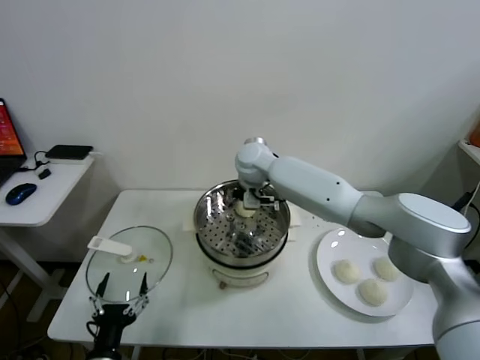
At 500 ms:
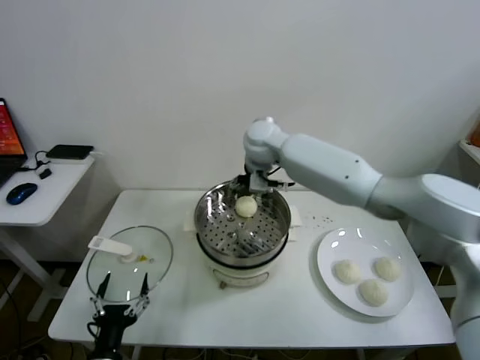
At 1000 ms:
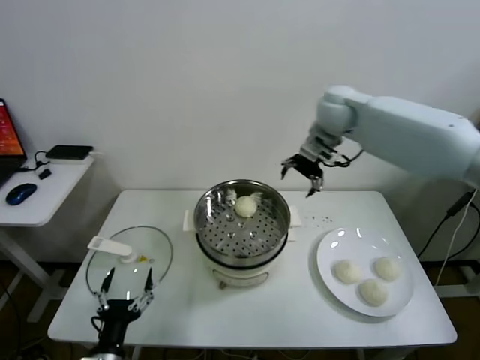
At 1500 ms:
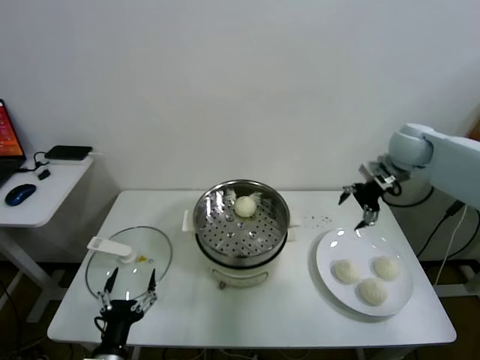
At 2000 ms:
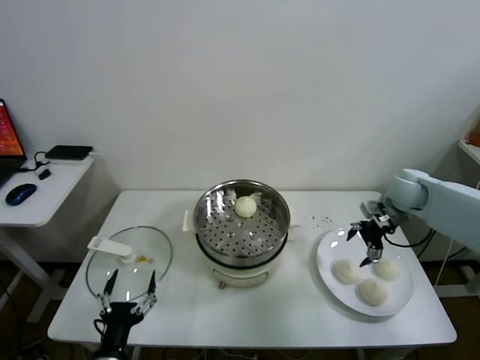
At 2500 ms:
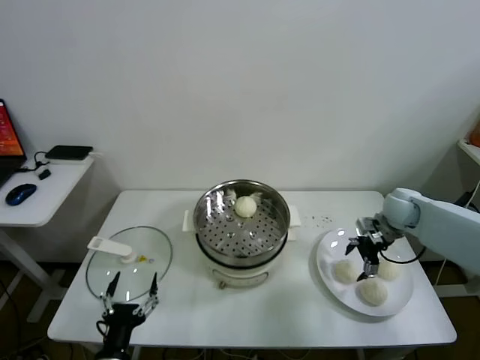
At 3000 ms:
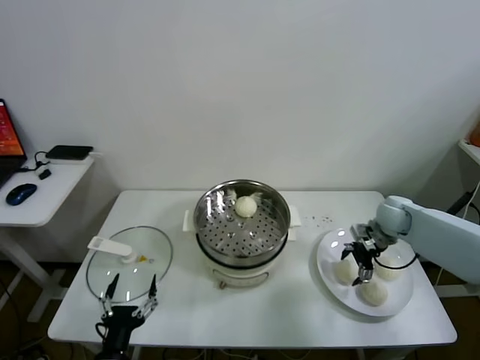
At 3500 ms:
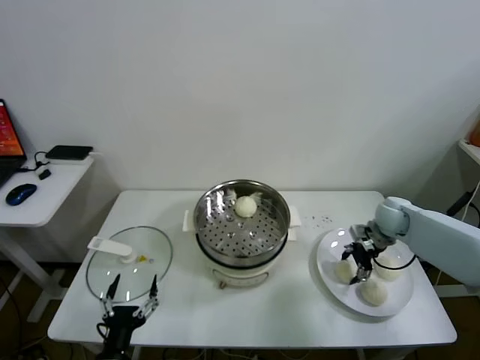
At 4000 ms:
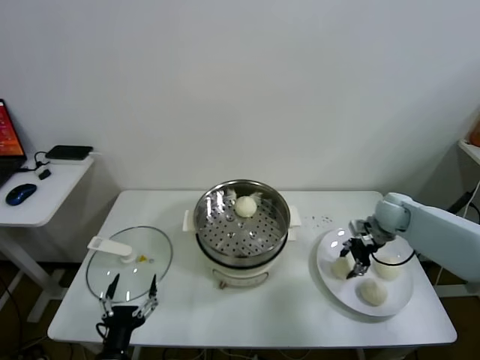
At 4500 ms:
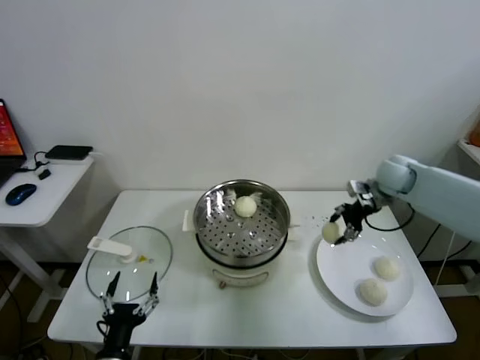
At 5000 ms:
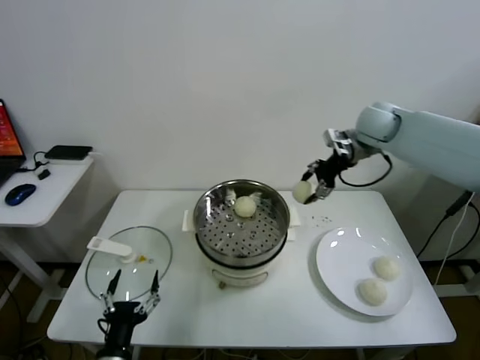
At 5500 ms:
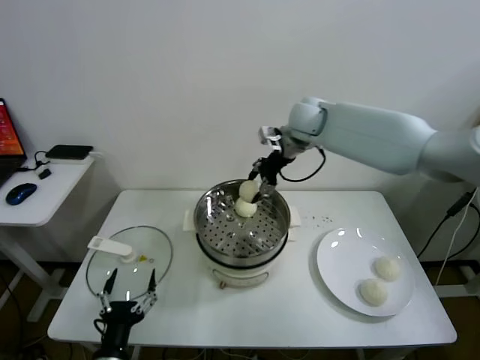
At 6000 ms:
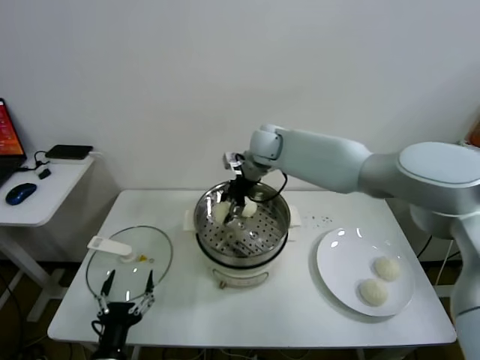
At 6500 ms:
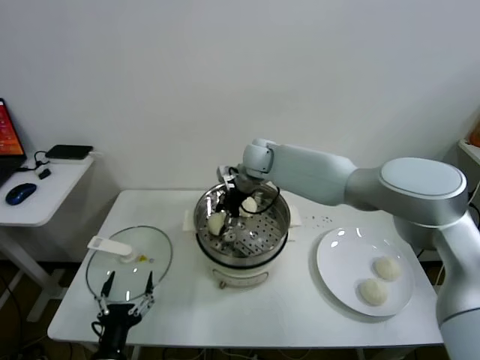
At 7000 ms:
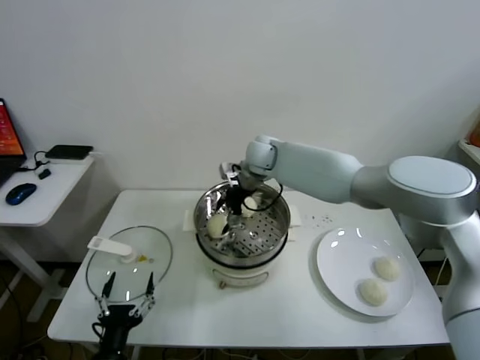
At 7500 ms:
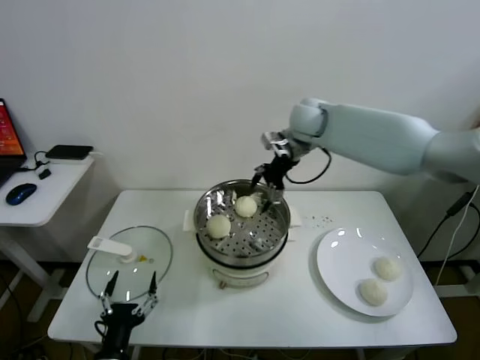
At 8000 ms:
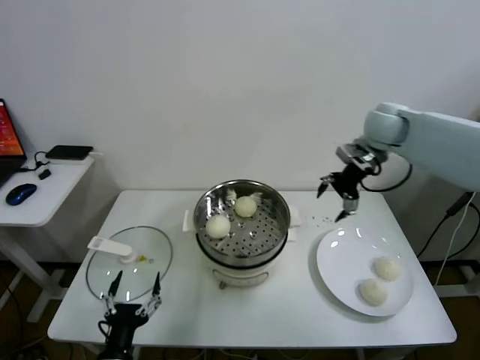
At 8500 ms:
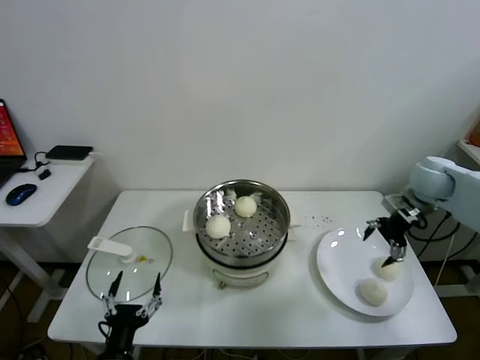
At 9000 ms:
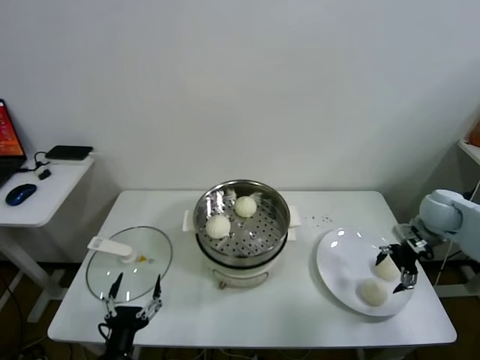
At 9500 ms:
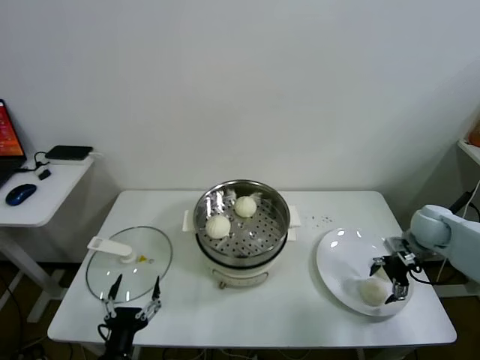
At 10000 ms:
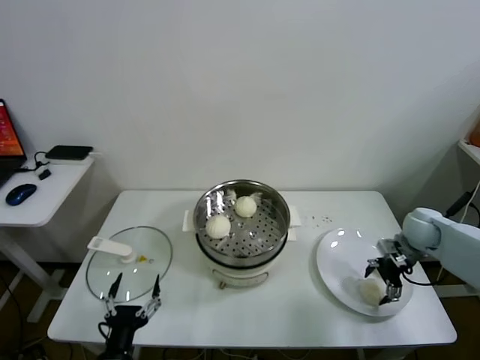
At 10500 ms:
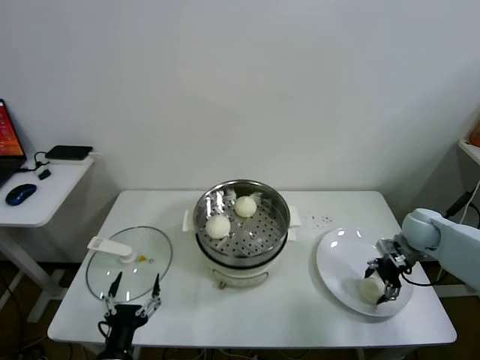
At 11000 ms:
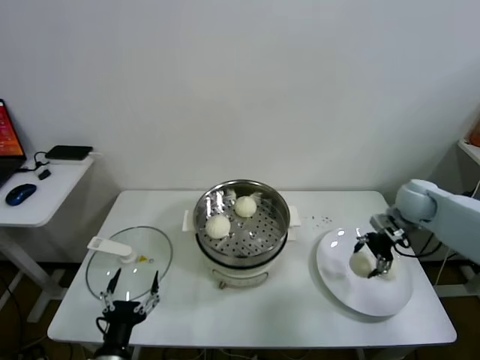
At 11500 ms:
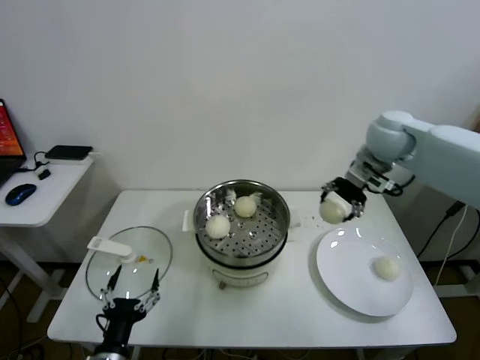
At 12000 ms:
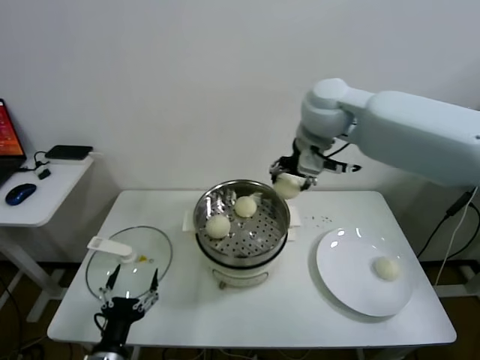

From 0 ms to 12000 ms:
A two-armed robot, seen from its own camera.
Task of the whole recording: take steamed baozi put them in steamer.
Step, from 500 ms to 3500 ms: Grasp the baozi in the plate with right gripper.
Step, from 4000 ms to 6500 ms: Place the baozi on the steamer with right gripper.
Step, from 7000 ms to 10500 ms: Grasp the baozi in the plate with right gripper.
From 0 ms to 2000 ms: The right gripper goes about 35 cm to the right.
From 2000 ms to 4000 ms: The right gripper moves downward, some 5 cm, and closes.
From 4000 ms to 6000 ms: The right gripper is displaced to the left and upward by roughly 35 cm.
From 6000 ms to 8000 ms: The right gripper travels to the right by about 25 cm, and opens.
From 8000 ms to 10000 ms: The right gripper shifts roughly 25 cm downward, to the right and backward.
From 10000 ms to 12000 ms: The right gripper shifts some 40 cm upward and to the left.

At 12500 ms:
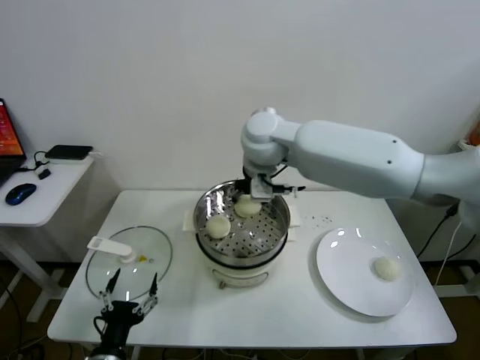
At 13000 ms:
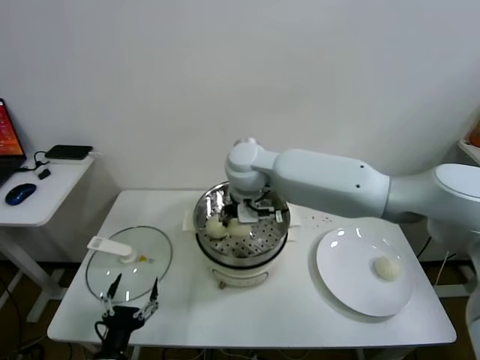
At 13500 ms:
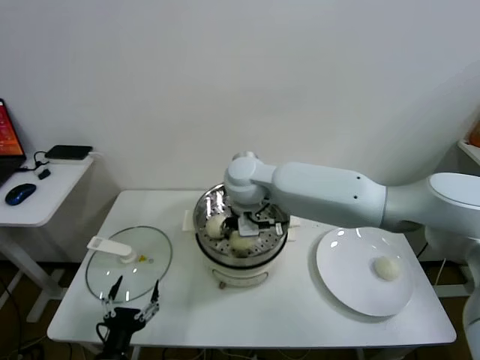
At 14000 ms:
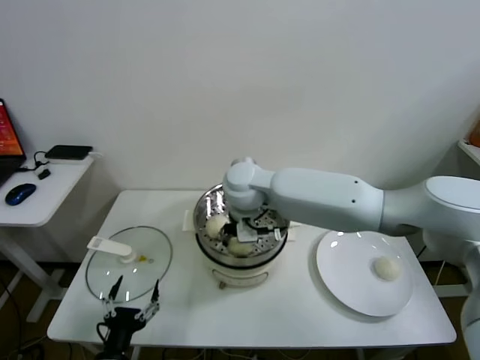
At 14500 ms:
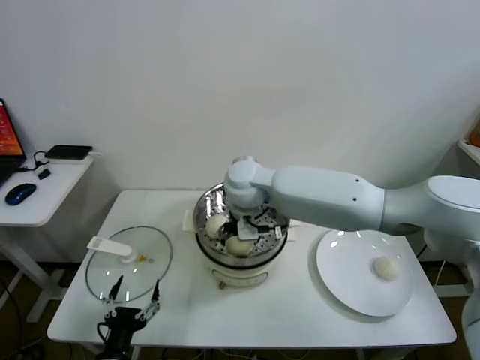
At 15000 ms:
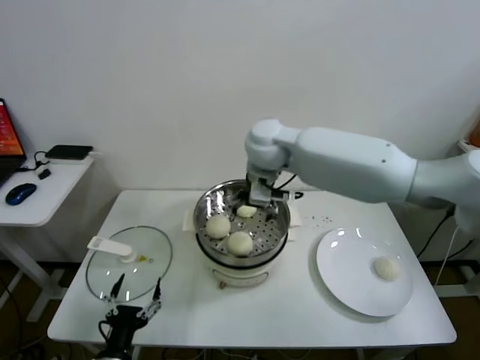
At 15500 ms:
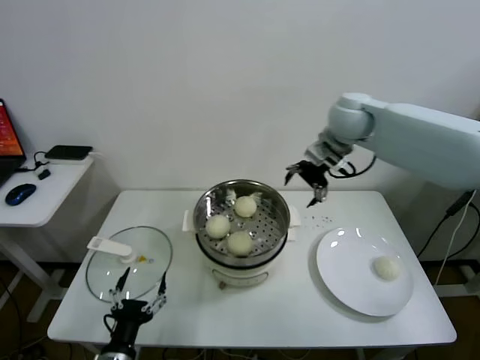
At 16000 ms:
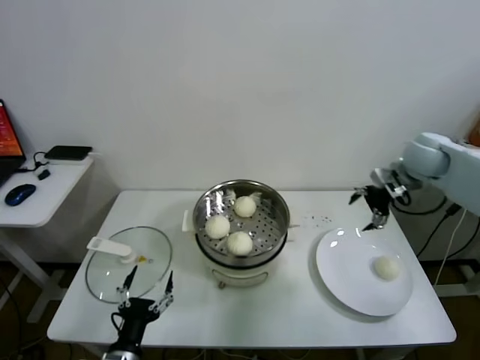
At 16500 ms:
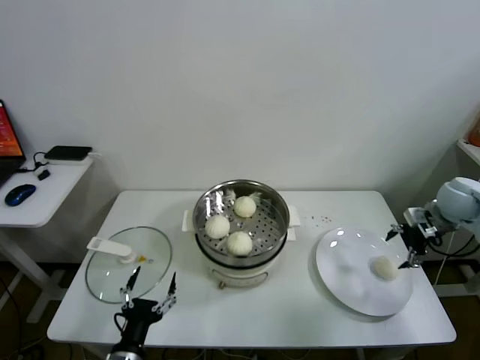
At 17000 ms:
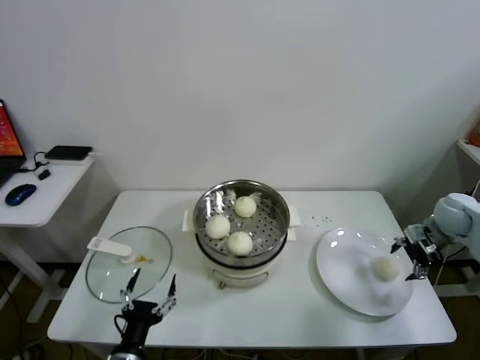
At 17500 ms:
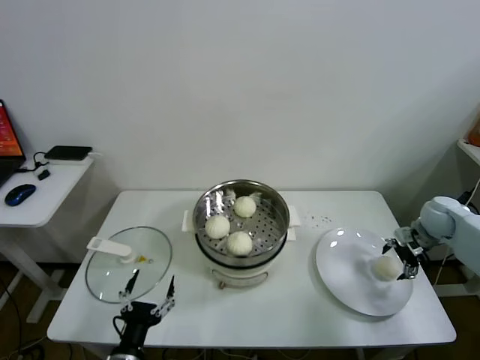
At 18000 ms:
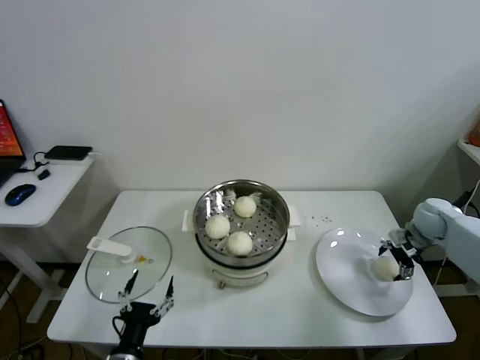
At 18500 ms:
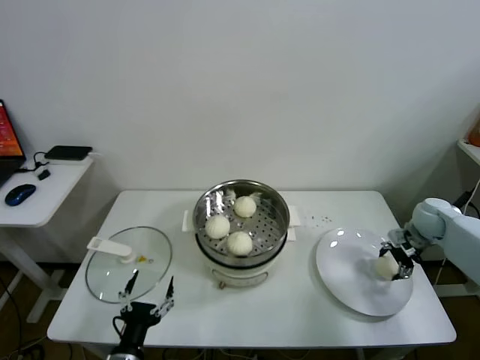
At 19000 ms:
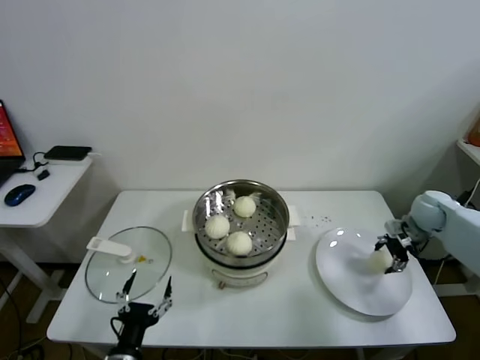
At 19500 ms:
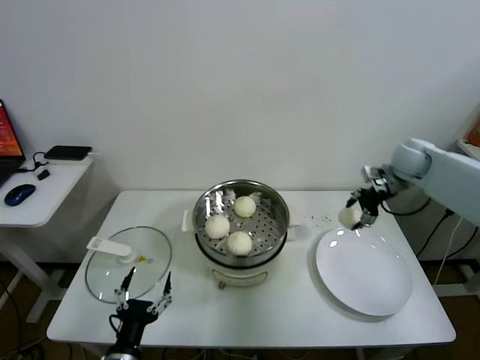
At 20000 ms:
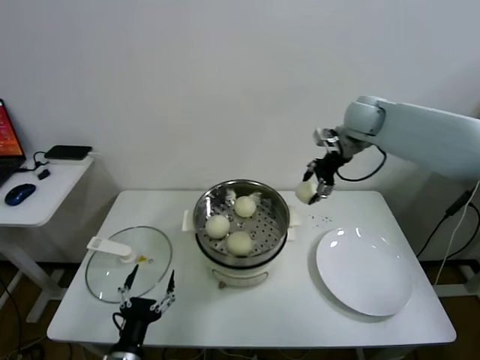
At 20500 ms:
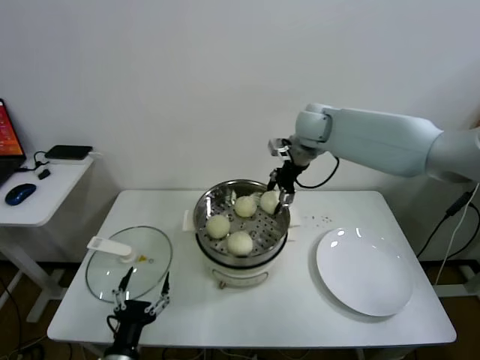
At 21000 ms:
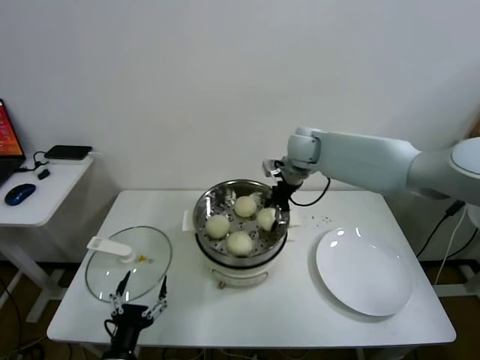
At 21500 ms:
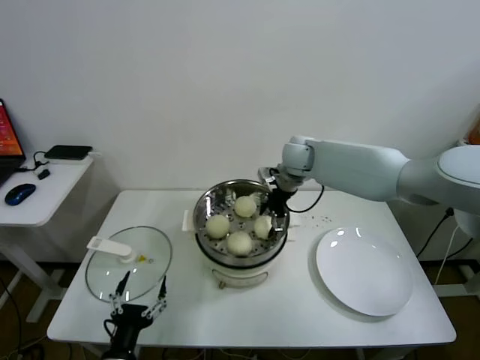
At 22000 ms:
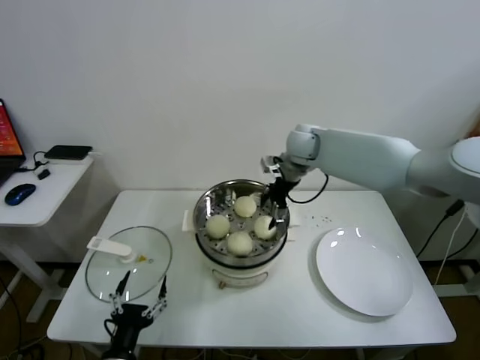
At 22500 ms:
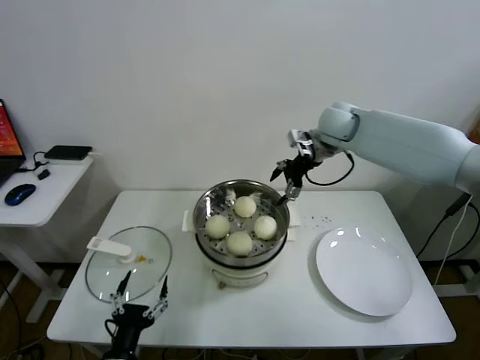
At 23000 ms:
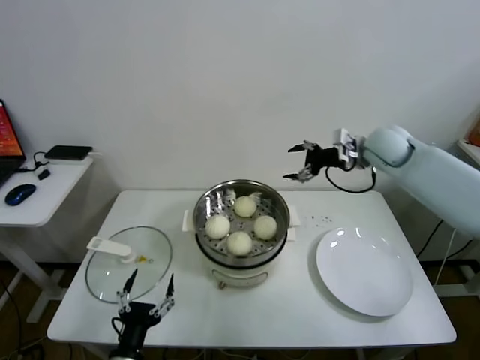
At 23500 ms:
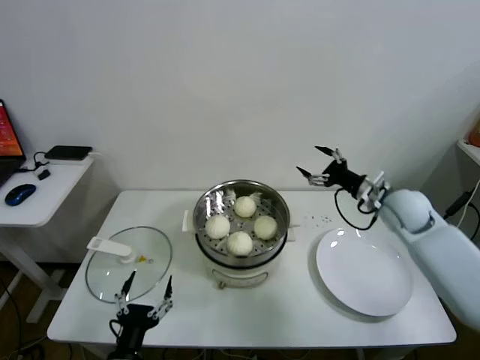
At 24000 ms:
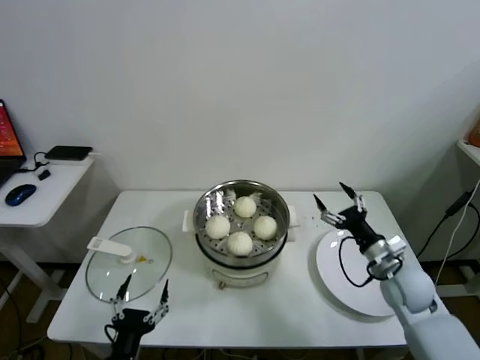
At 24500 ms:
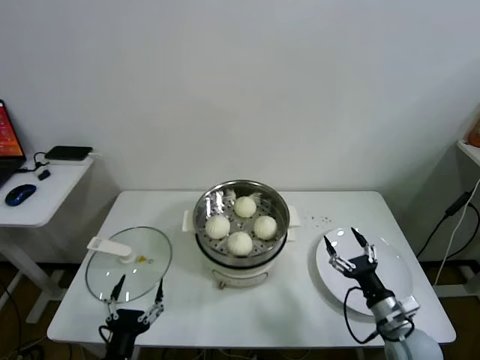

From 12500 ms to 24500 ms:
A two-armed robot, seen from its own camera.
Task of the whole recording: take steamed baozi put them in steamer.
Step, from 14500 ms to 18500 ms: Grasp the baozi in the plate with right gripper.
Step, from 19000 ms to 21500 ms: Place the baozi on the steamer with right gripper.
From 12500 ms to 14500 ms: The right gripper is displaced downward by some 10 cm, and opens up.
From 14500 ms to 16500 ms: The right gripper is displaced to the right by some 50 cm.
From 16500 ms to 18500 ms: The right gripper is displaced downward by some 10 cm.
From 18500 ms to 20500 ms: The right gripper heads to the left and upward, covering about 40 cm.
From 20500 ms to 22500 ms: The right gripper moves approximately 10 cm downward and comes back, and opens up.
From 22500 ms to 24500 ms: The right gripper goes about 50 cm backward and downward.
